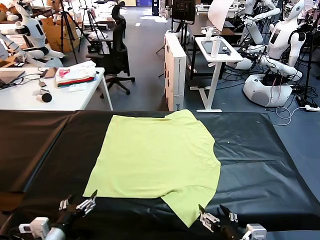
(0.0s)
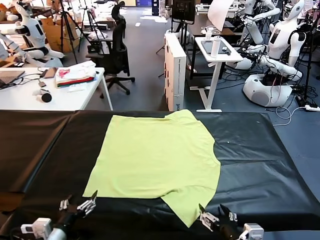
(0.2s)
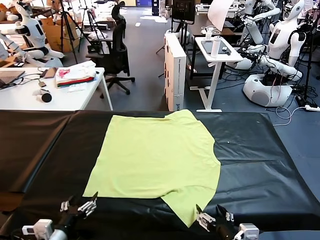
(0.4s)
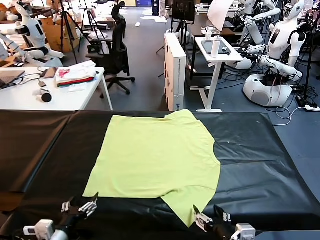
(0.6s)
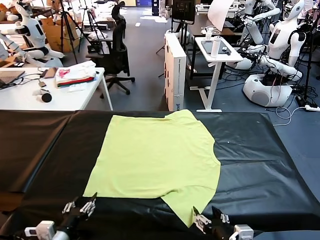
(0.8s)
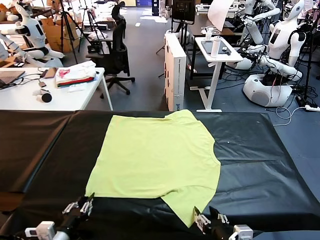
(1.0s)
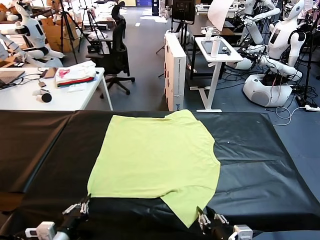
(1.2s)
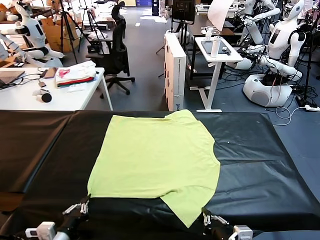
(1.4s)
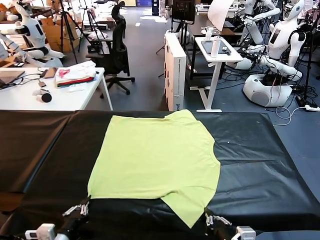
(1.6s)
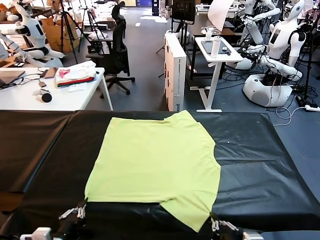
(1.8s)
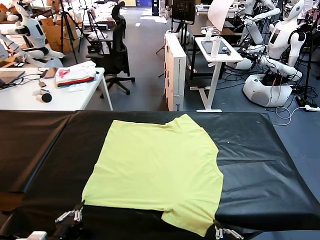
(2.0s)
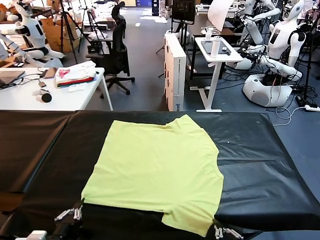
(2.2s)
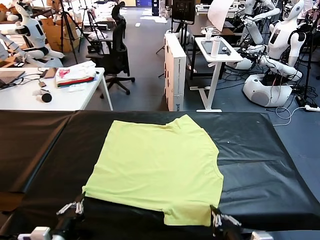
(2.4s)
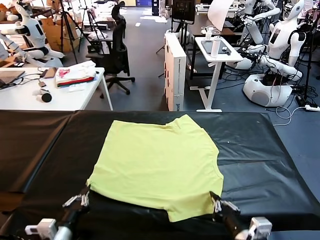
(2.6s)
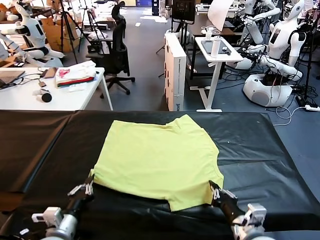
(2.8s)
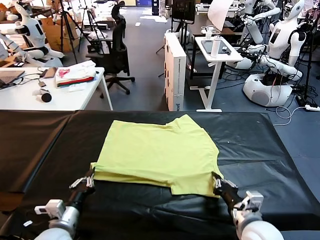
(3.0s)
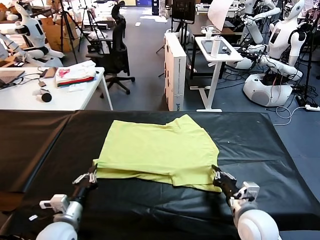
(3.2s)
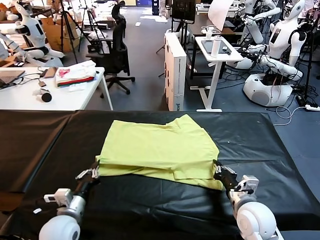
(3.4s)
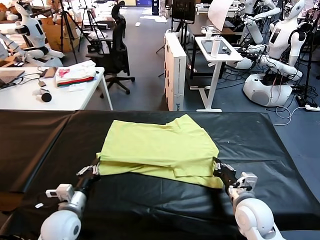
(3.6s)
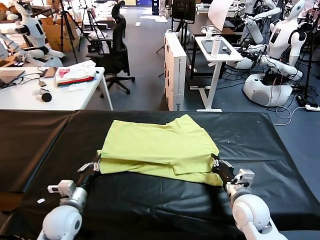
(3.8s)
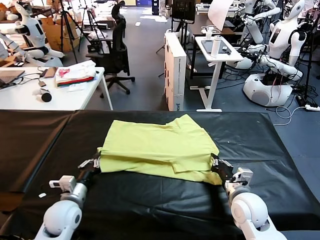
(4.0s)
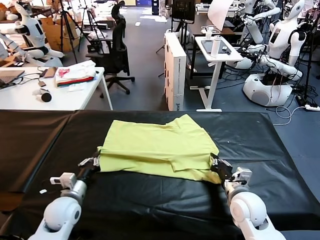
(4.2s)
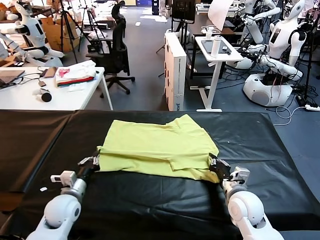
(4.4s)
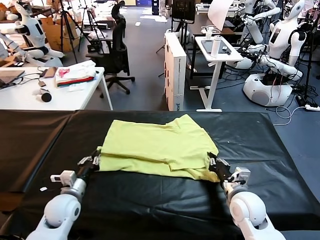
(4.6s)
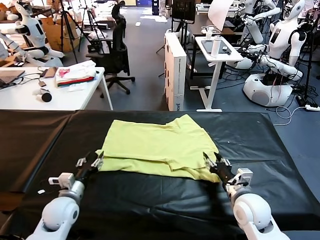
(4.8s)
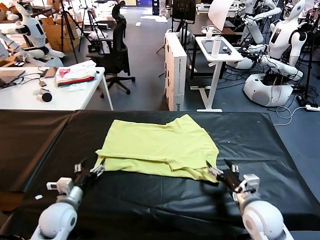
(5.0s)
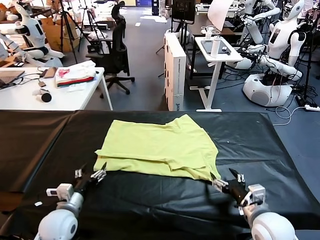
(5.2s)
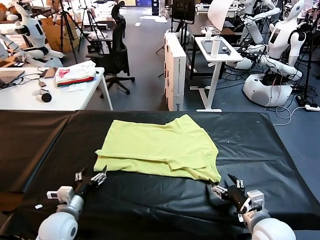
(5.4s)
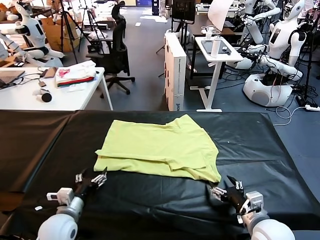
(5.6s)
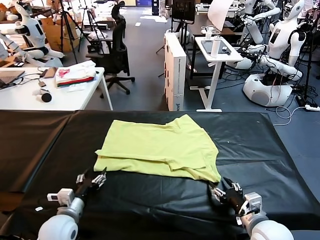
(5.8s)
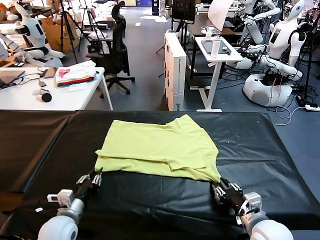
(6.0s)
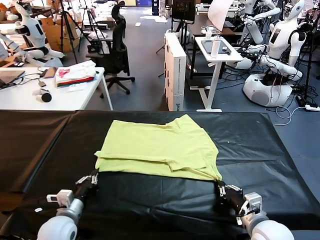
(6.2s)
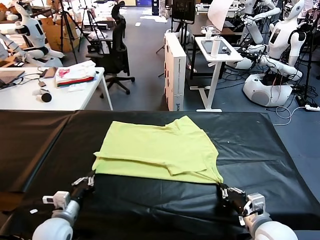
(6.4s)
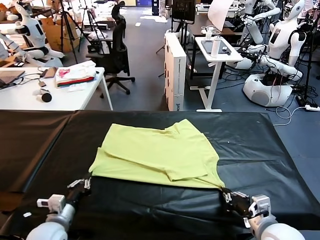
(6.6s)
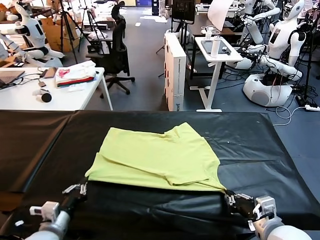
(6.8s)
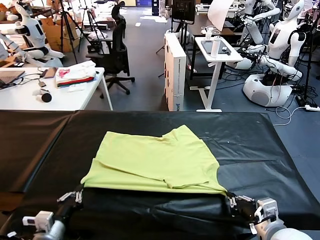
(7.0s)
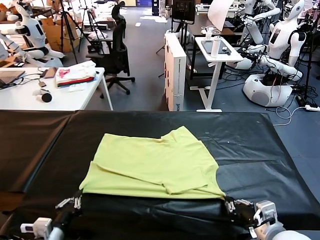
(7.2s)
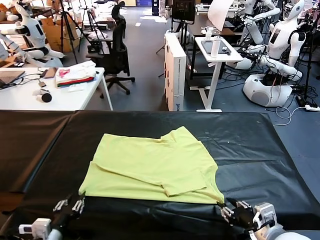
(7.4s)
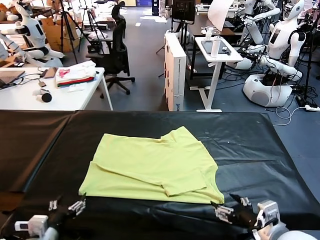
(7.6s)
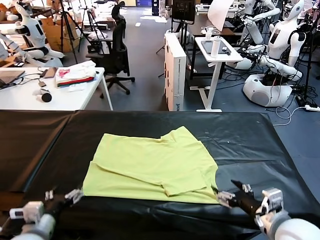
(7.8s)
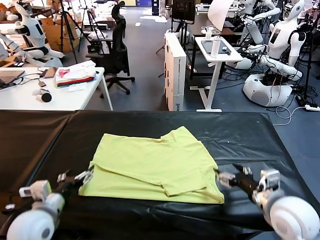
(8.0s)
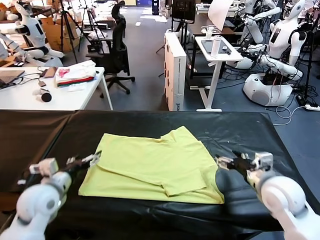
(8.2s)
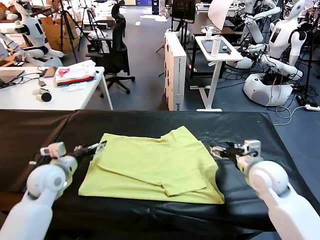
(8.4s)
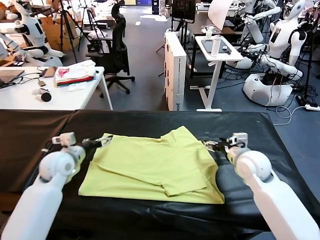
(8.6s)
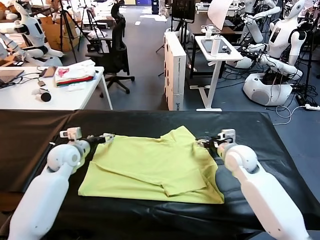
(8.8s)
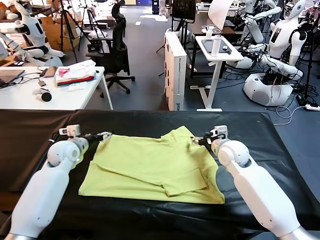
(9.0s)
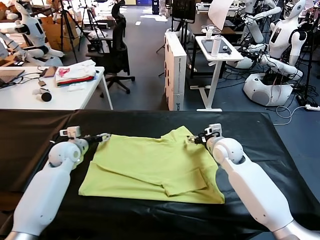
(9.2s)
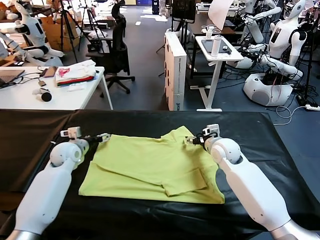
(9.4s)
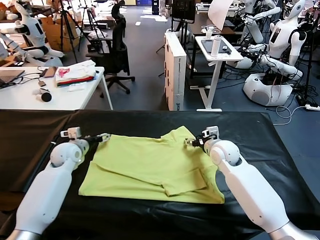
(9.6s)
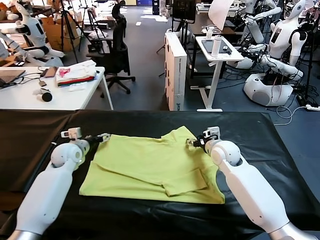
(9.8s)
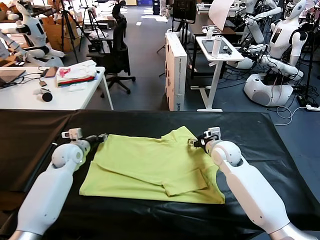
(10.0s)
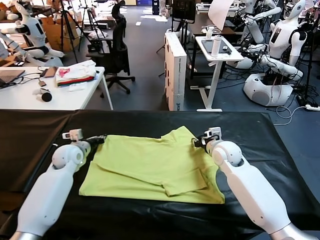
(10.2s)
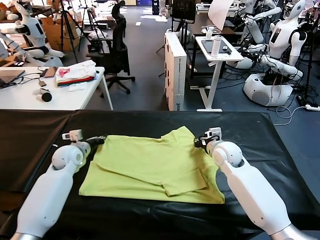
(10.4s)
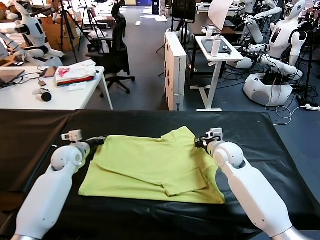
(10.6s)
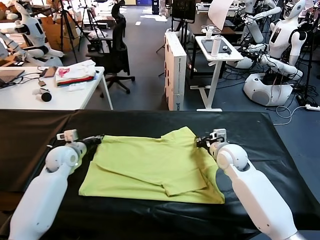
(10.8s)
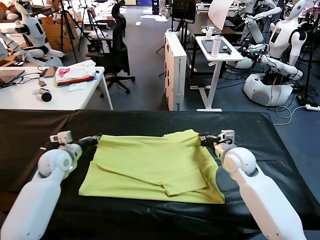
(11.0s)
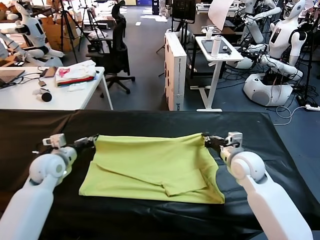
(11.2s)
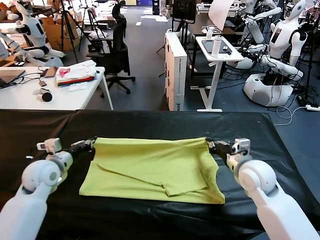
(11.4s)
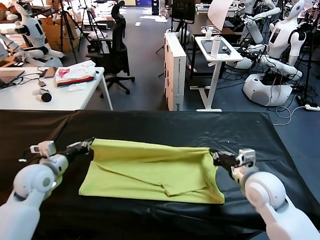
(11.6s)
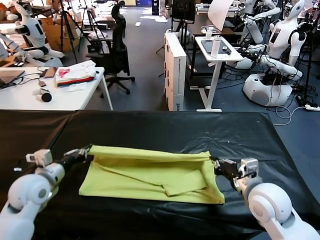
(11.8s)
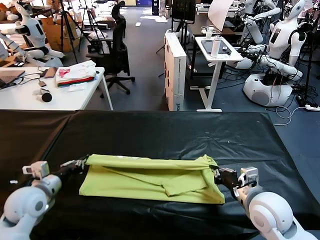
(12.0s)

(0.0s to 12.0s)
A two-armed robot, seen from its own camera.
Task of the whole recording: fold and organize the clothes.
Step, 0.0s - 1.8s: use both grippers simultaneously to clamp the lower edge of the clothing fabric.
Step, 2.0s - 4.8s: use both grippers to drag the lower edge of the fabric forward and fold it over the upper edge.
Step, 5.0s - 7.4s: Drag the clothes downward with both gripper.
Step, 7.6s - 10.6s: use both grippers simultaneously to clamp the upper edge of the clothing fabric.
1.6s - 3.0s: The right gripper moves forward, about 15 cm. Meanwhile the left gripper heads forward, covering approximately 10 cm.
3.0s - 4.4s: The left gripper shifts roughly 10 cm forward.
4.4s - 6.0s: The grippers both shift backward by some 5 cm. The right gripper opens, then closes once more; the left gripper opens and closes again.
6.0s - 7.6s: The right gripper goes approximately 10 cm upward, and opens up; the left gripper moves backward and upward, about 10 cm, and opens up.
7.6s - 9.0s: Both grippers move forward, about 30 cm.
9.0s - 10.4s: The right gripper closes its fingers. Meanwhile the left gripper closes.
10.4s - 12.0s: Both grippers move backward, some 20 cm.

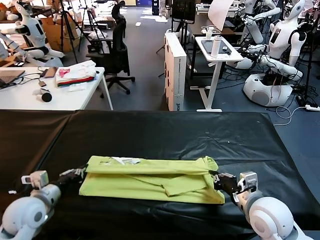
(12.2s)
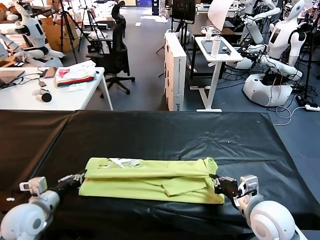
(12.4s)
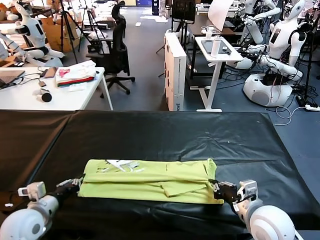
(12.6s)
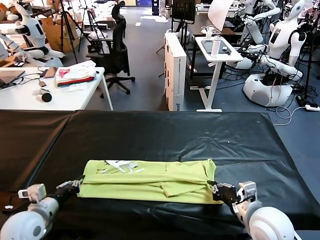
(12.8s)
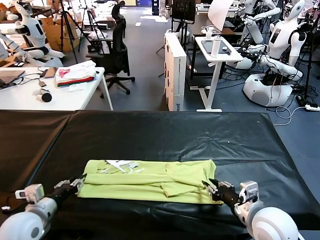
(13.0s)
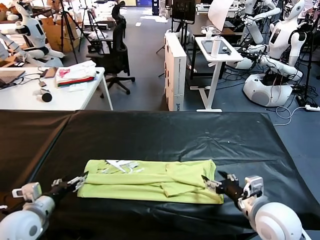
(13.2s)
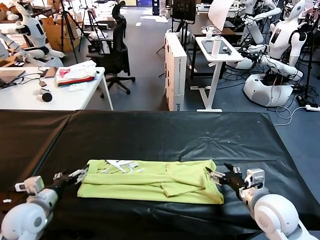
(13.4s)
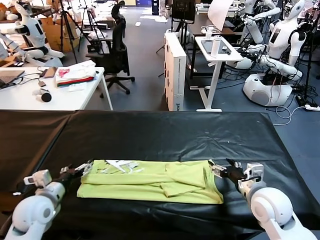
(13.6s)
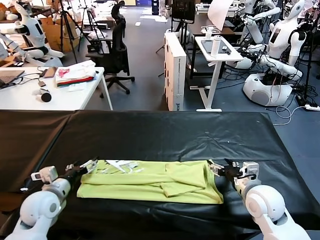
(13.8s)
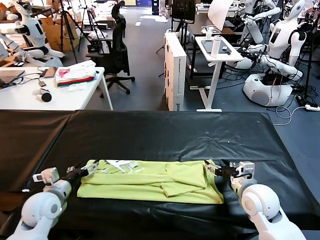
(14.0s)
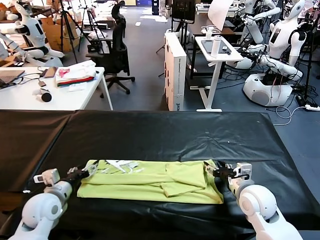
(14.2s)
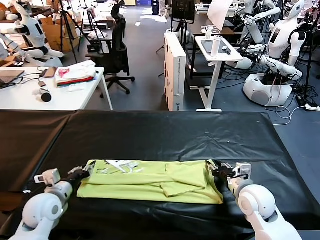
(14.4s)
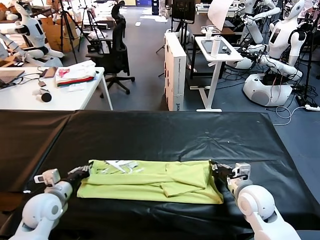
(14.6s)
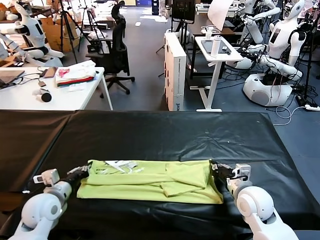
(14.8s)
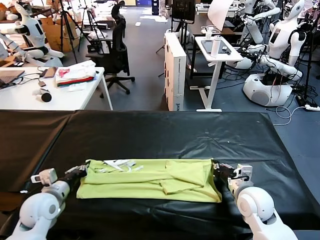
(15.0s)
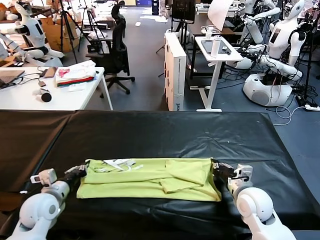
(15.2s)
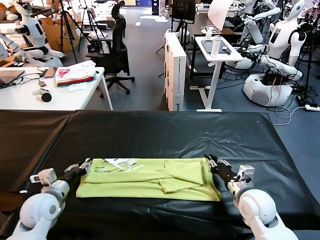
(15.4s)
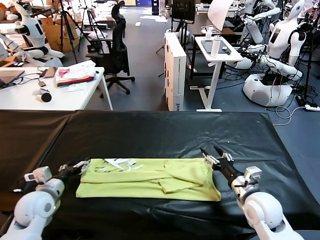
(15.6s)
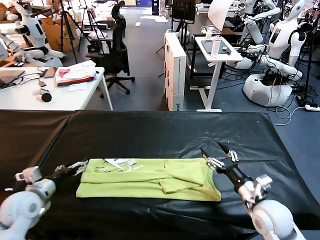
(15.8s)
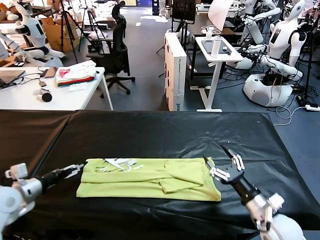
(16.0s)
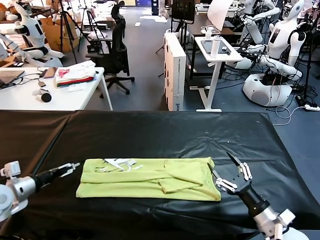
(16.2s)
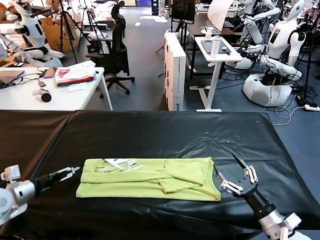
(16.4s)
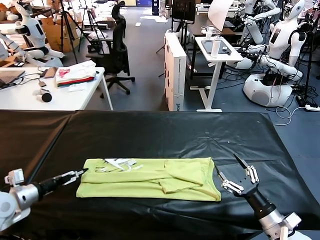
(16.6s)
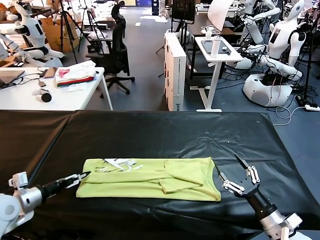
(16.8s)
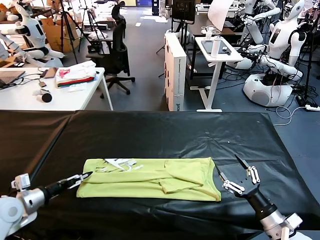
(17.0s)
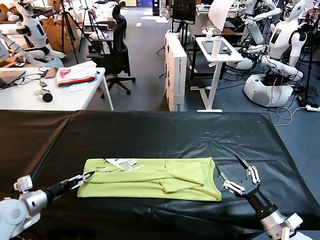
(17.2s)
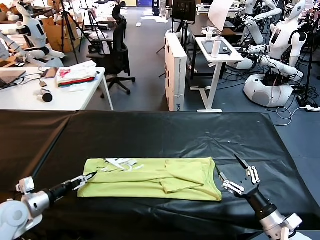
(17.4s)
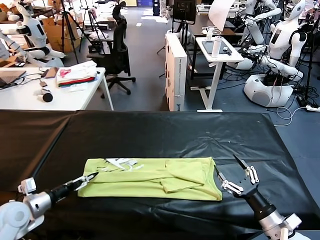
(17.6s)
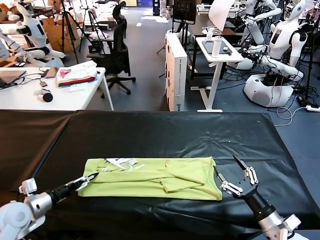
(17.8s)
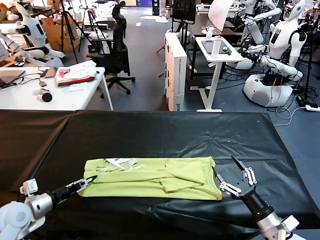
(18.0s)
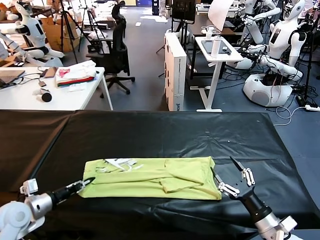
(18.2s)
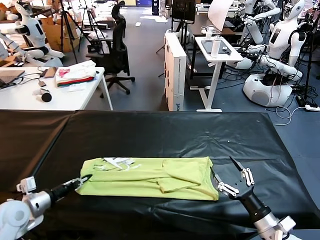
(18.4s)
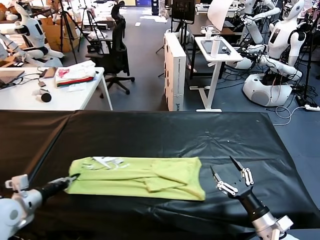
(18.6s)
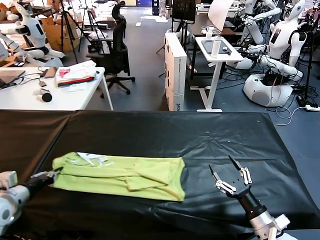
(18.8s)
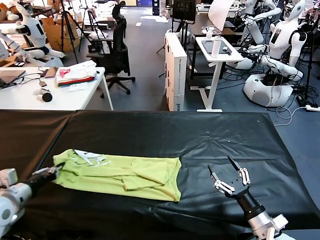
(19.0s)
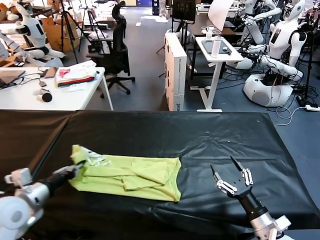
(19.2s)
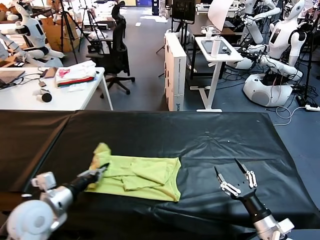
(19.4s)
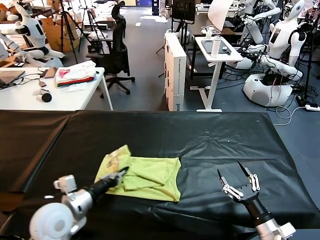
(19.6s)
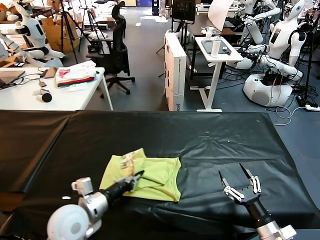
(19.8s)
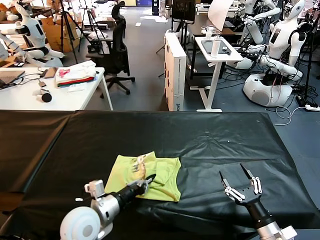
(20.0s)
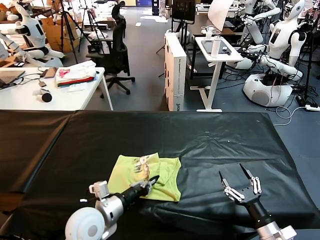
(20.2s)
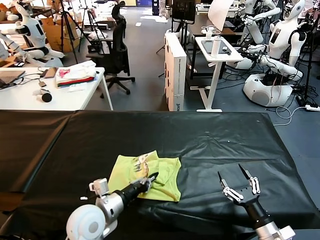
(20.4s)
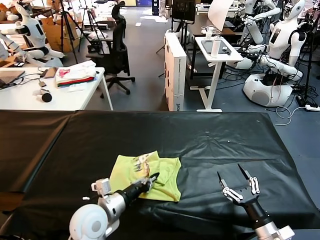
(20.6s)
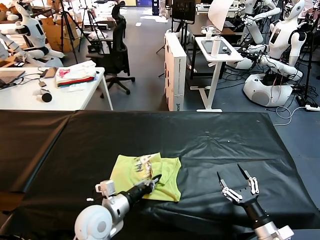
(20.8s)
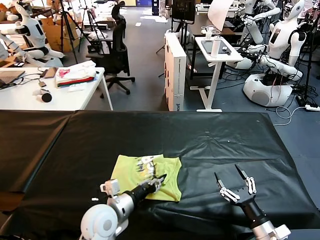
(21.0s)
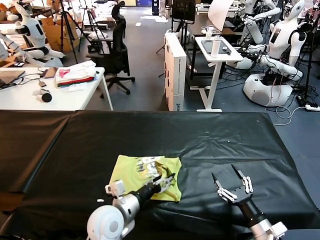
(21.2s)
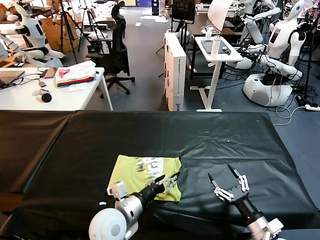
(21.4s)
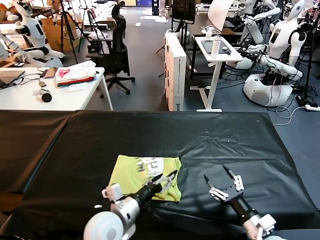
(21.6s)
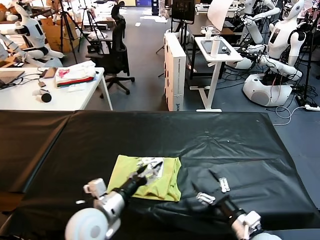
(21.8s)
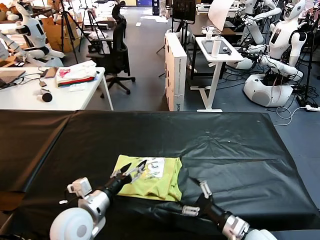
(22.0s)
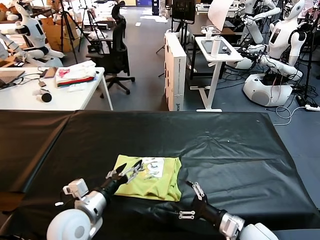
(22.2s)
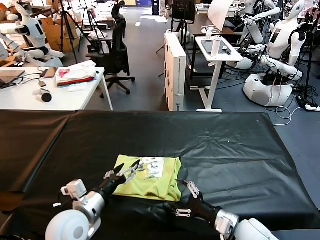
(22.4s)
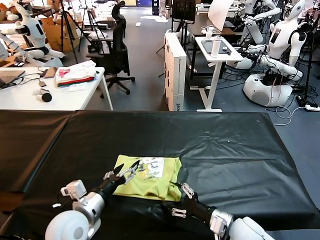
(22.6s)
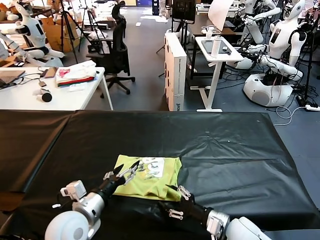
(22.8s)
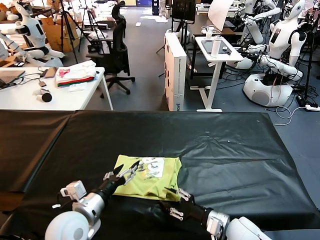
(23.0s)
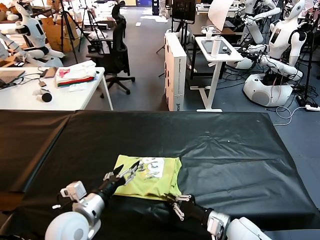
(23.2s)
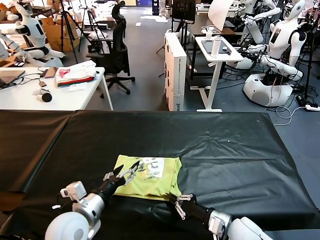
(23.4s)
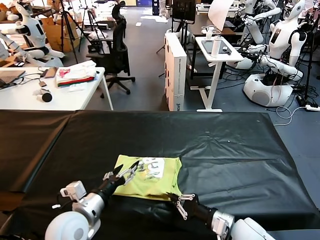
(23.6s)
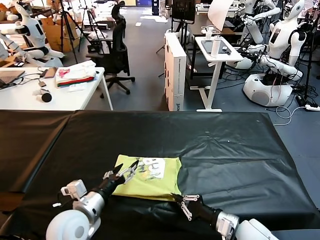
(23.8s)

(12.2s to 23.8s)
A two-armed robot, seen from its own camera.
Task of the whole recording: fold and organize the clothes.
Step, 13.4s - 18.2s: use the left gripper to clamp the left edge of the fabric.
Step, 18.4s - 21.2s: use the left gripper to drag the left edge of the fabric to the left and folds it over the right edge.
12.2s - 13.6s: The left gripper opens up. Meanwhile the right gripper goes roughly 5 cm forward, and opens.
13.6s - 15.0s: The left gripper closes up; the right gripper closes.
15.0s - 16.6s: The left gripper is displaced to the left by some 10 cm, and opens its fingers, while the right gripper goes approximately 15 cm backward and to the right, and opens up.
16.6s - 18.0s: The left gripper ends up about 5 cm from where it was, and closes its fingers.
18.0s - 19.4s: The left gripper shifts approximately 10 cm to the right and upward.
19.4s - 21.0s: The left gripper shifts roughly 15 cm to the right and downward.
21.0s - 22.4s: The left gripper travels to the left and upward by approximately 10 cm, and opens its fingers; the right gripper heads to the left and forward, covering roughly 10 cm.
22.4s - 23.8s: The right gripper closes its fingers.
